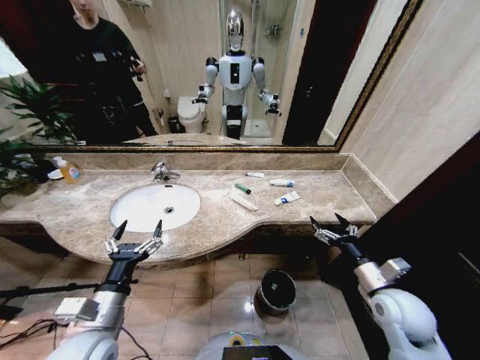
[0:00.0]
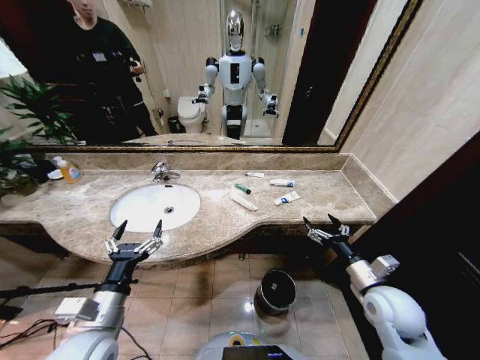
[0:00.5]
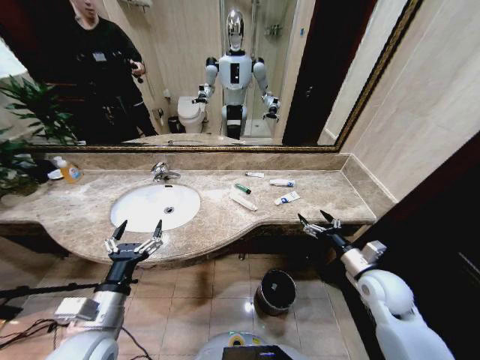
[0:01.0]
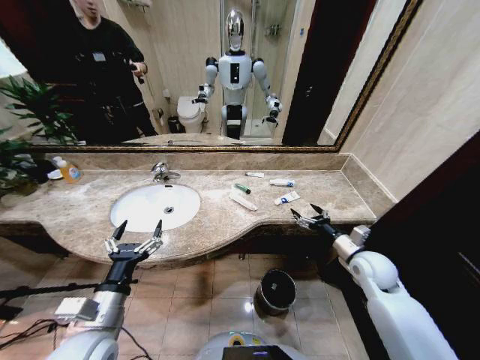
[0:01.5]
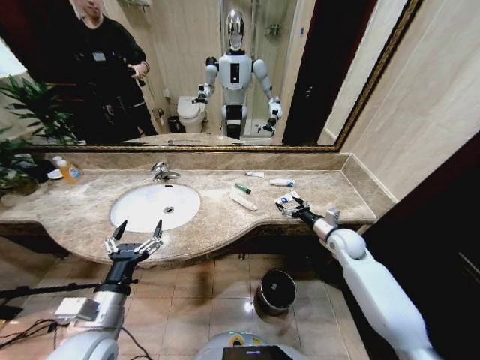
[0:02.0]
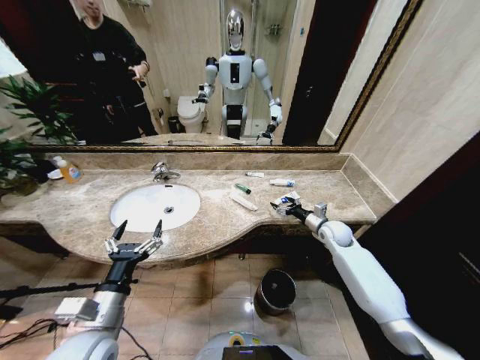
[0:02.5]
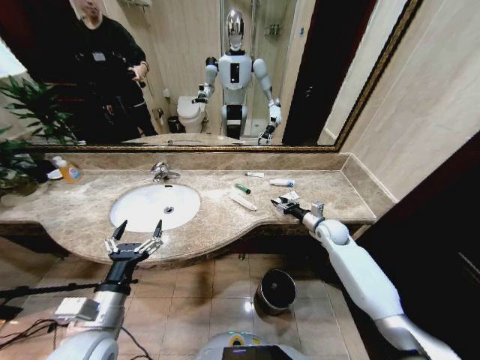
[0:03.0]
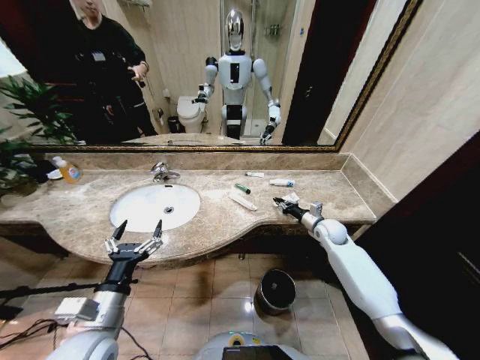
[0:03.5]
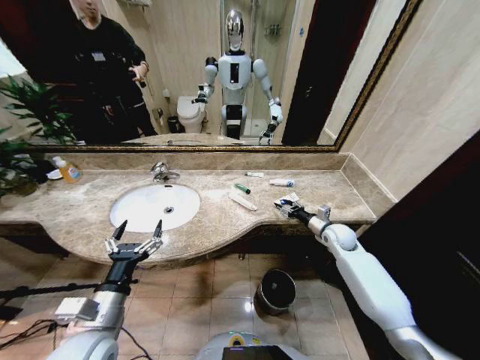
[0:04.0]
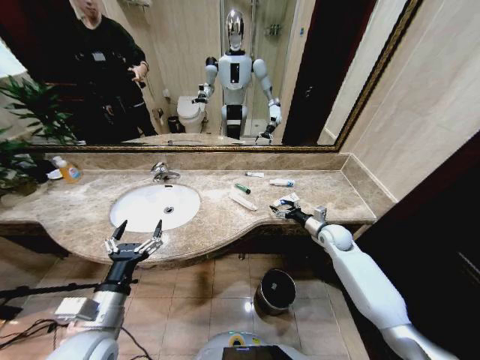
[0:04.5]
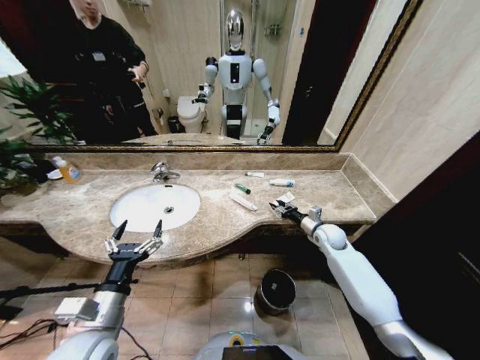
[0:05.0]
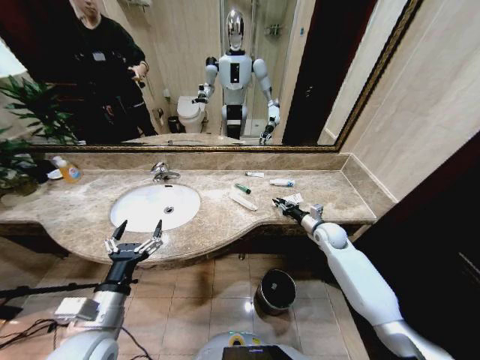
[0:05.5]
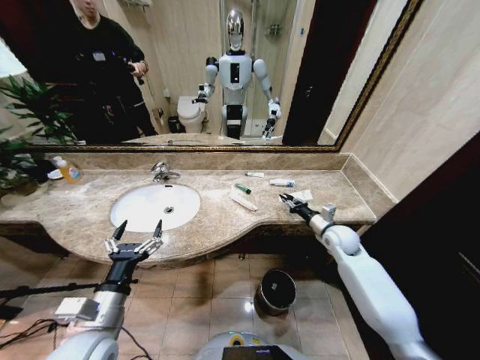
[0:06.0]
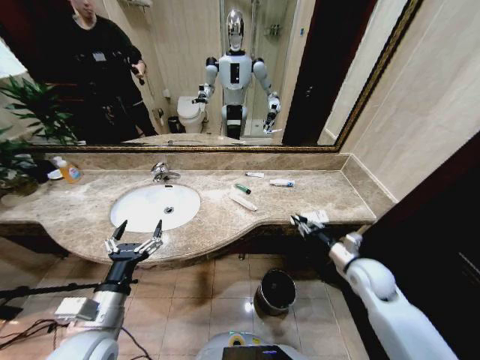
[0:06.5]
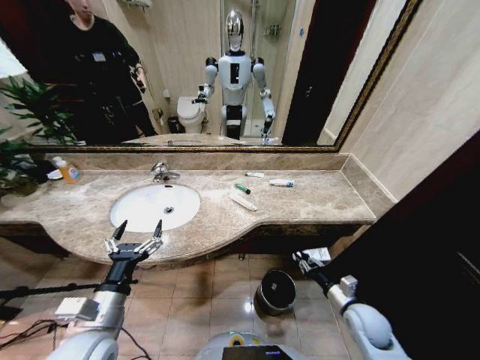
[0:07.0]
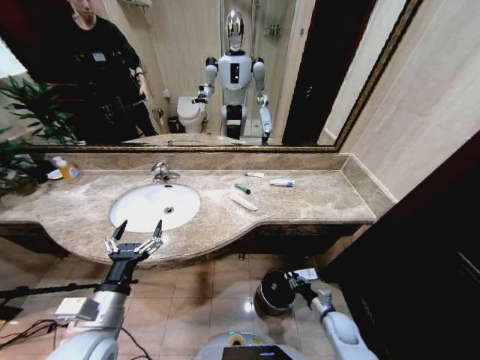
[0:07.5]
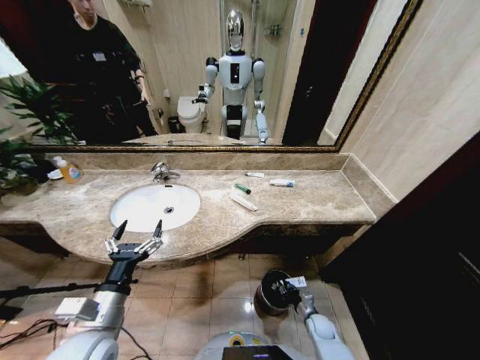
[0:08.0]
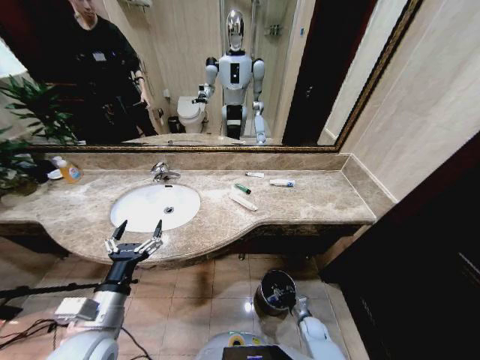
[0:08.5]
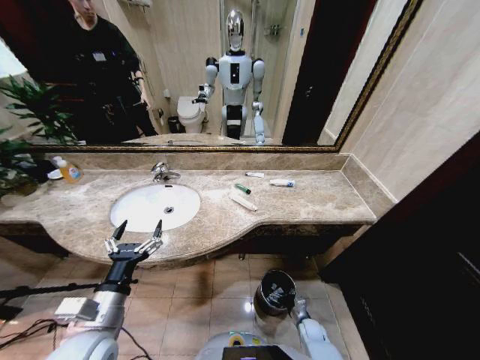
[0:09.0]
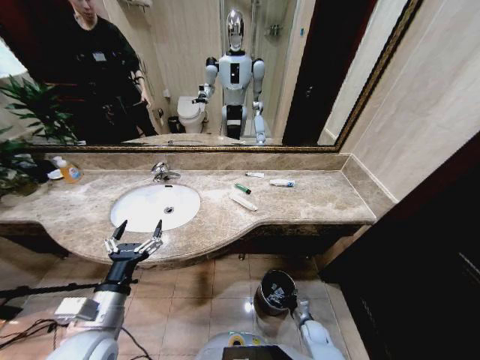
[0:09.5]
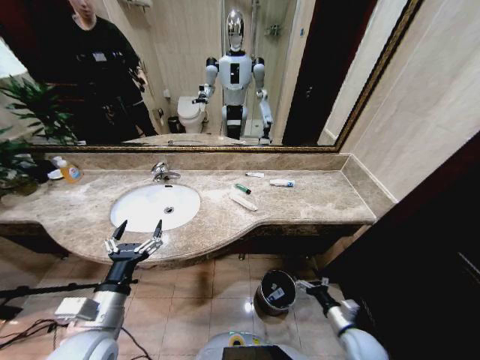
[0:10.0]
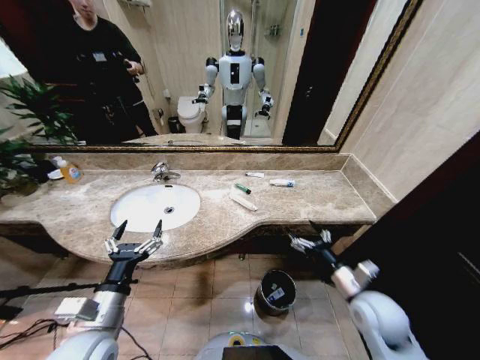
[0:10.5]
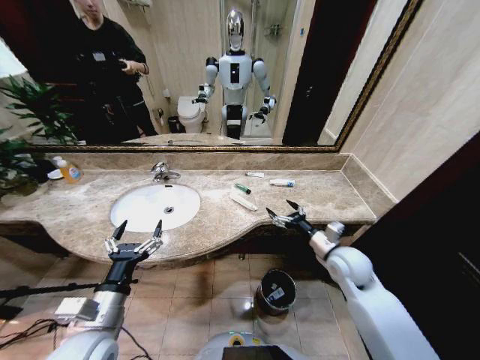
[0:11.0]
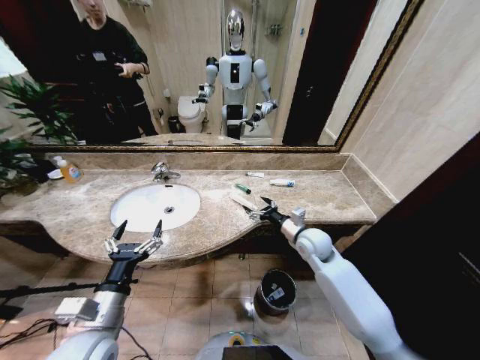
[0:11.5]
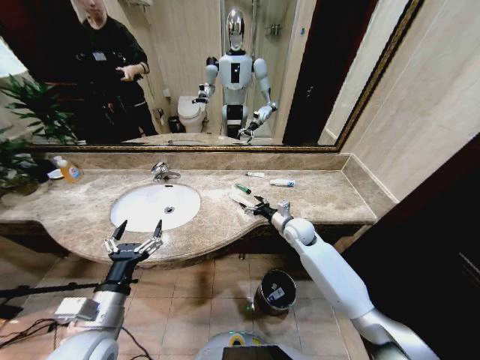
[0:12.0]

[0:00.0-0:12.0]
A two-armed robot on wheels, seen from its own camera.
Task of the whole recording: Pick up the trash from the sink and place it in the trash bin.
2.0 to 4.0 s: The right gripper closes its fingers.
4.0 to 6.0 s: The right gripper closes.
6.0 to 8.0 s: The right gripper shifts some 35 cm downward and backward.
8.0 to 10.0 s: The right gripper moves upward and backward, about 15 cm, and opens its fingers.
10.0 to 12.0 s: The right gripper is displaced forward, upward and to the left by about 35 cm.

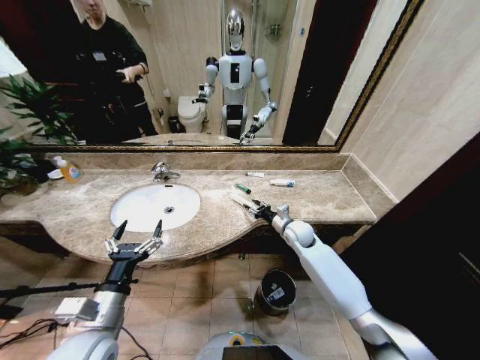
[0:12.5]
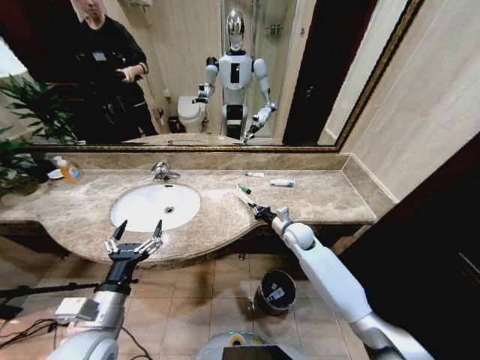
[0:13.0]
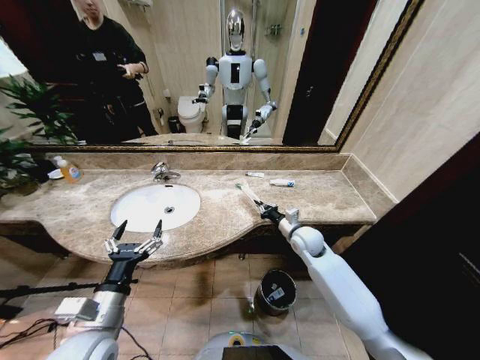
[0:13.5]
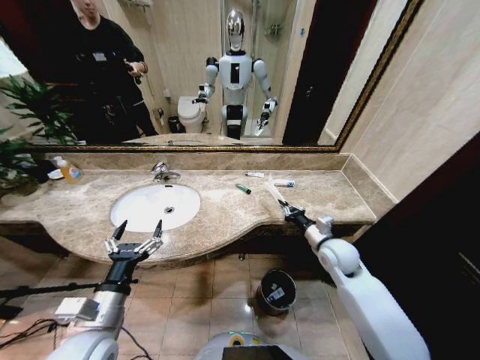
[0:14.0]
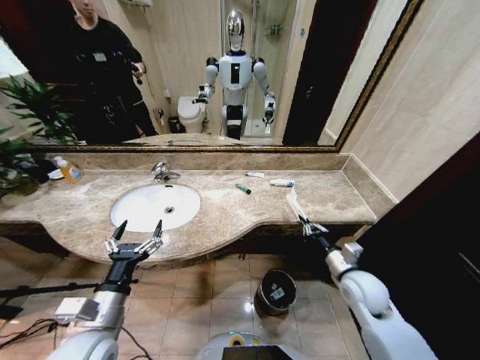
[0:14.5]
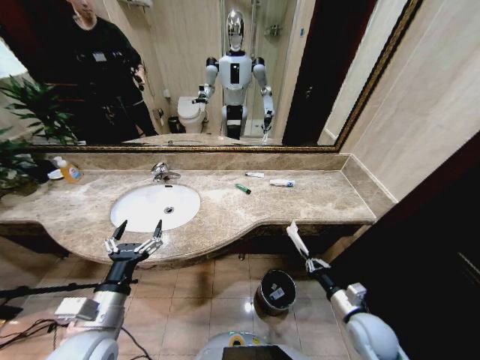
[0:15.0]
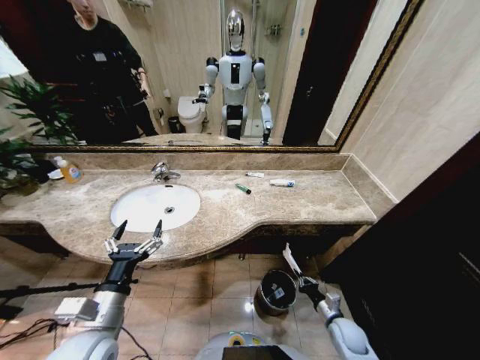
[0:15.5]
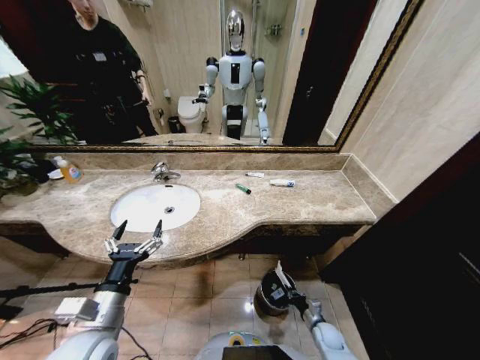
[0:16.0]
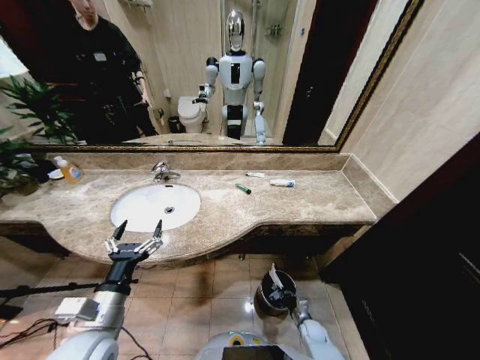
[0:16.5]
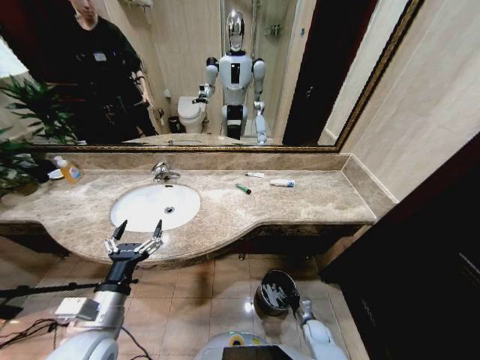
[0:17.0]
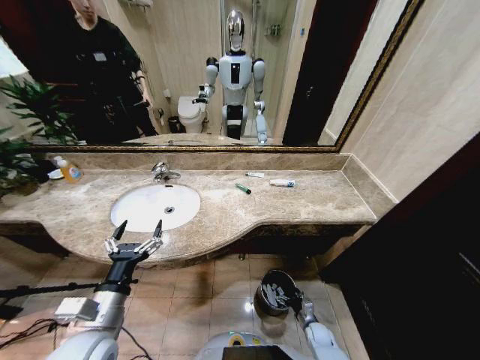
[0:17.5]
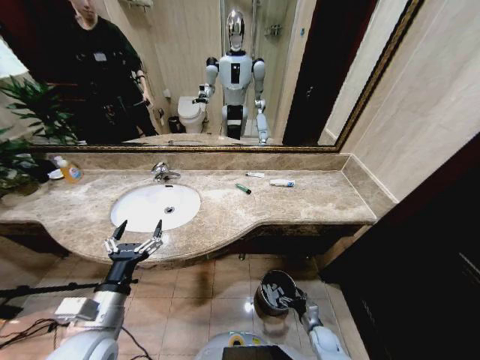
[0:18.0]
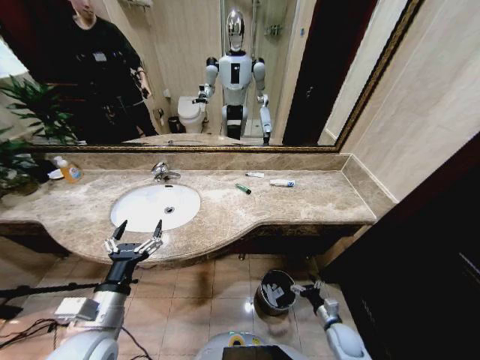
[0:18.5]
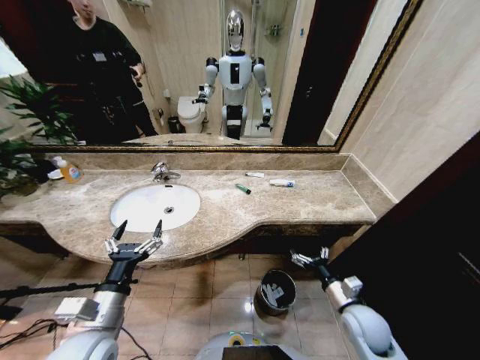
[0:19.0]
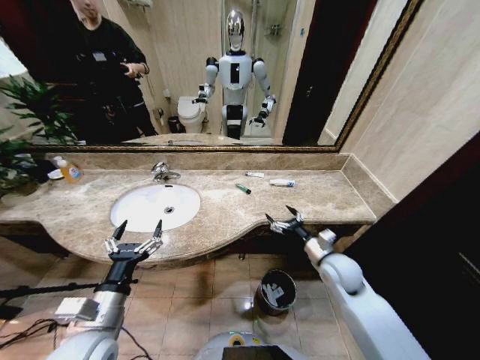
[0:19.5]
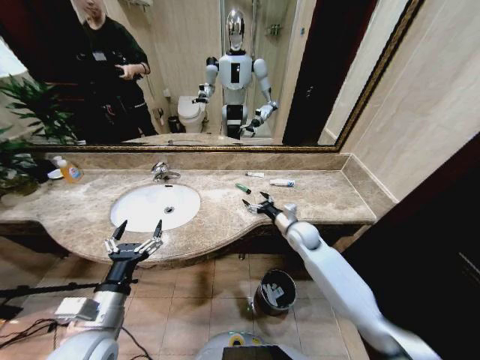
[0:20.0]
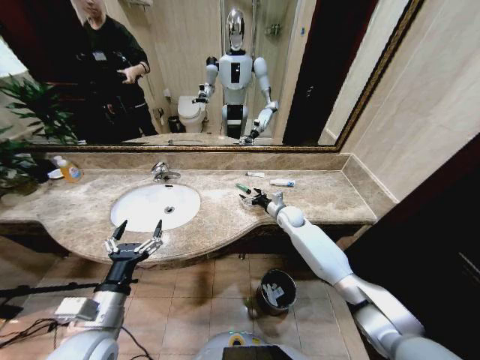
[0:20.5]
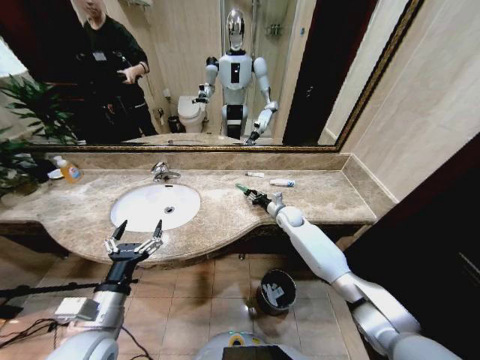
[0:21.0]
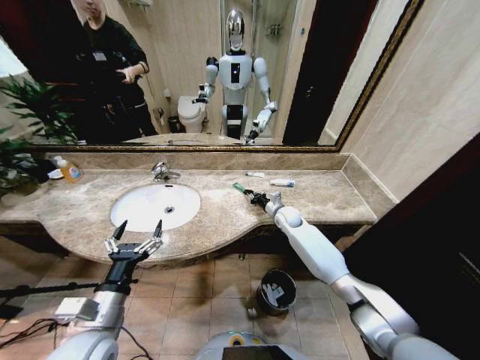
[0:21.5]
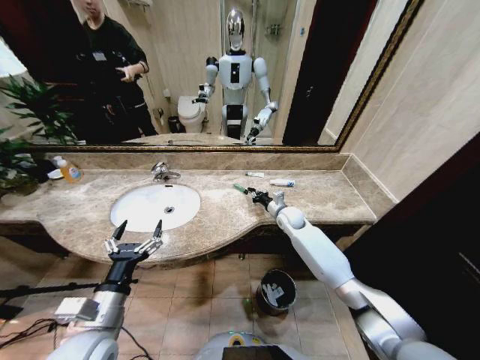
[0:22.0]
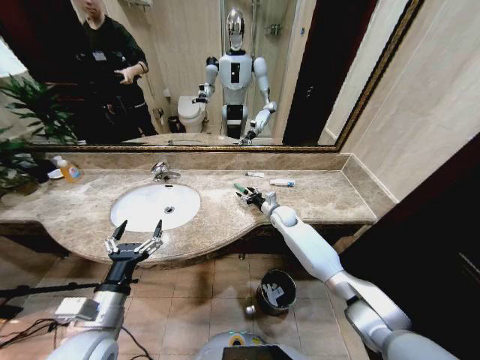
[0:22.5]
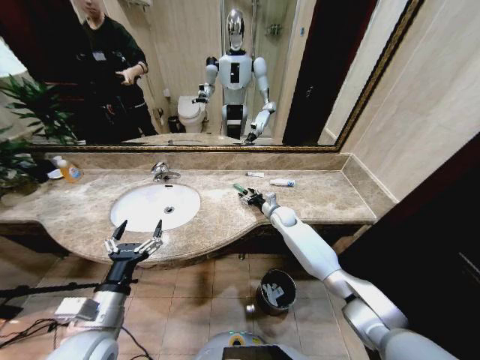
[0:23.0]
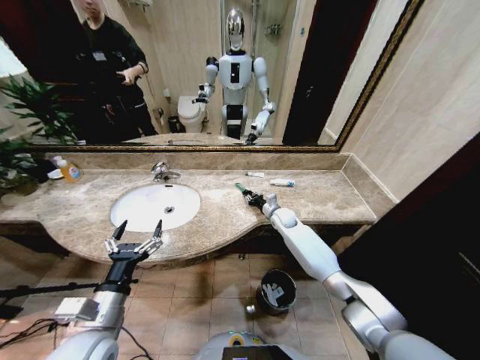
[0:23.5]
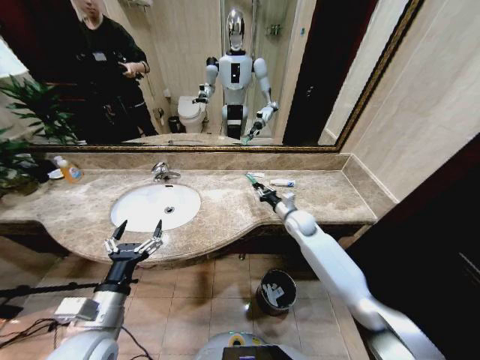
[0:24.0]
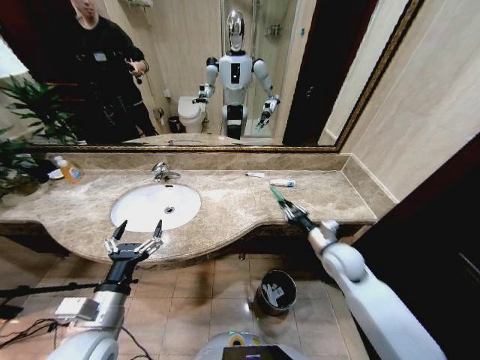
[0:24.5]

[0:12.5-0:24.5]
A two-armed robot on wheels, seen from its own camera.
Task of the whole recording: Pick up the trash from the sink and place it in the trash bin.
12.5 to 14.5 s: The right gripper goes some 20 cm backward and to the right, and closes.
14.5 to 16.5 s: The right gripper is displaced downward by roughly 35 cm.
16.5 to 18.5 s: The right gripper is displaced upward and to the right by roughly 10 cm, and opens its fingers.
18.5 to 20.5 s: The right gripper travels forward and upward by some 40 cm.
20.5 to 22.5 s: The right gripper closes, then reopens.
22.5 to 24.5 s: The right gripper shifts some 25 cm backward and to the right, and closes up.

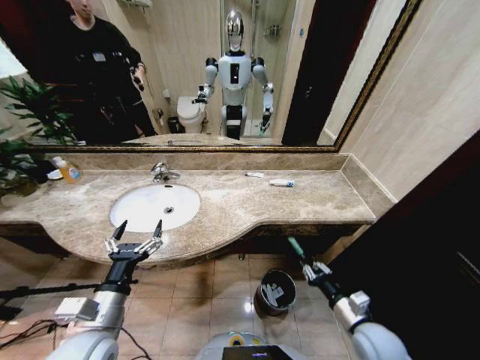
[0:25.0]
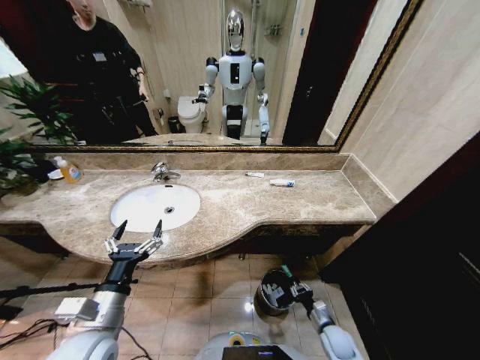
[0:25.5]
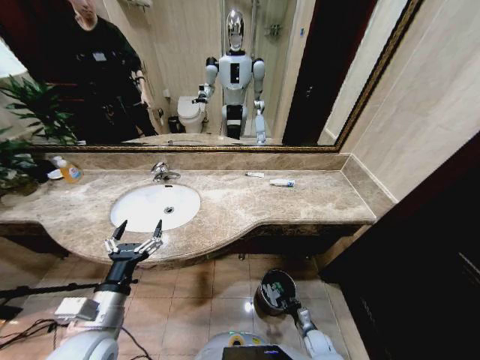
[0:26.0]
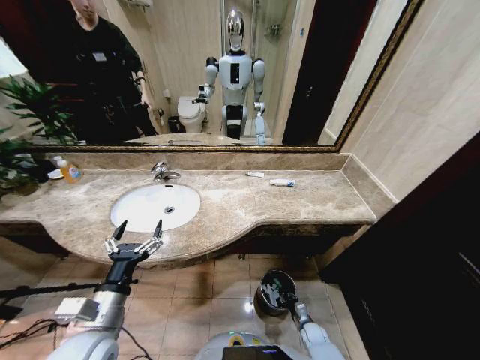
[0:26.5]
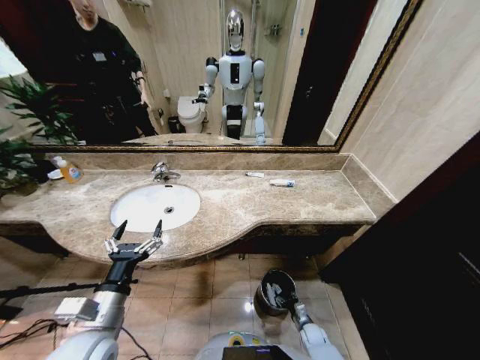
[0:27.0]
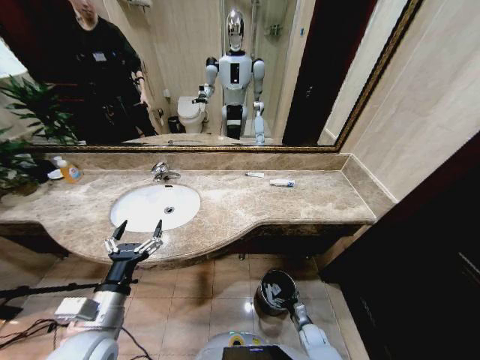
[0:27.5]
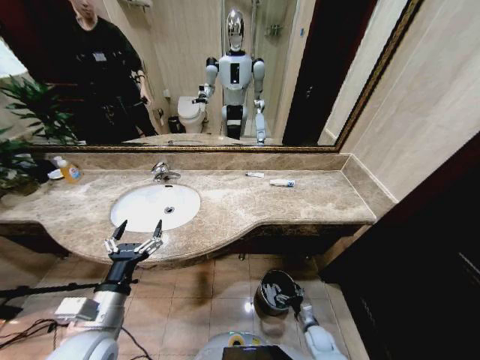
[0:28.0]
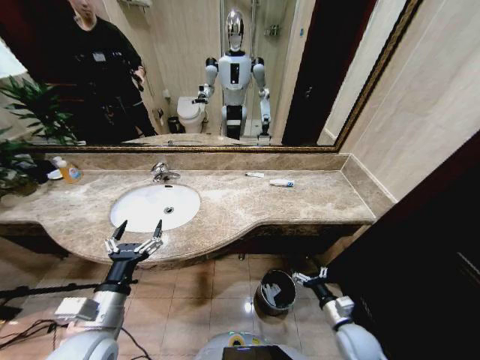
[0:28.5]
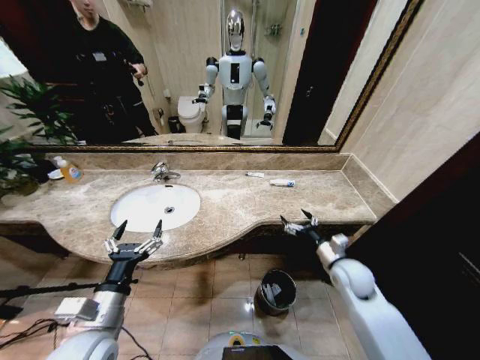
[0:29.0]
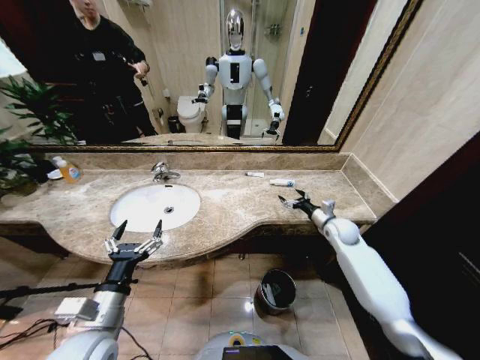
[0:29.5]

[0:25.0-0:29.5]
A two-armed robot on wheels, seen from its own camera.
Task of the whole recording: Pick up the trash from the sink and place it in the trash bin.
25.0 to 27.0 s: The right gripper is displaced downward by some 30 cm, and opens.
27.0 to 29.5 s: The right gripper travels upward and forward by approximately 40 cm, and opens.
